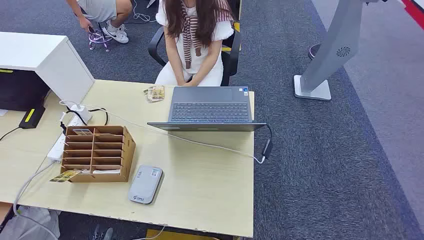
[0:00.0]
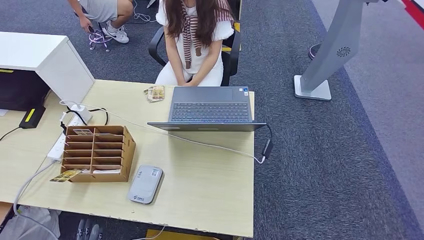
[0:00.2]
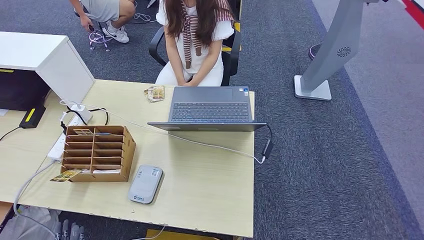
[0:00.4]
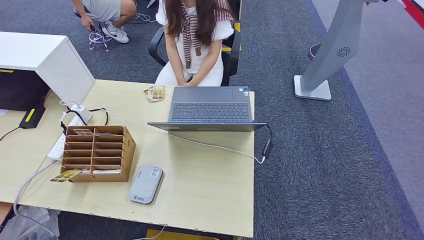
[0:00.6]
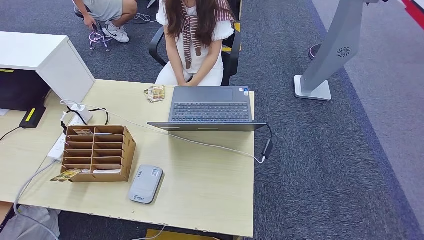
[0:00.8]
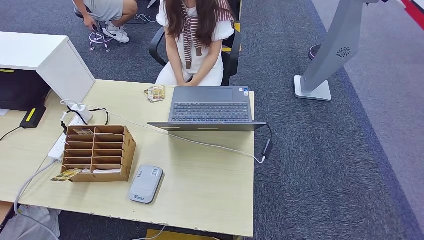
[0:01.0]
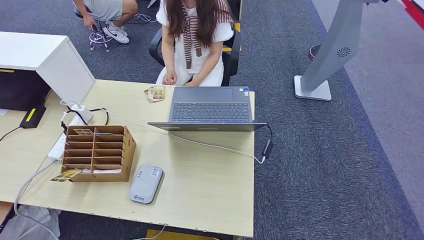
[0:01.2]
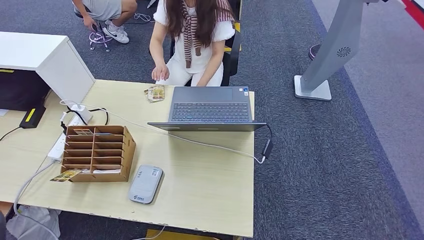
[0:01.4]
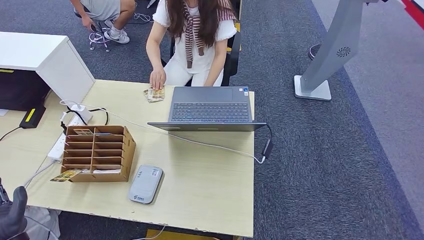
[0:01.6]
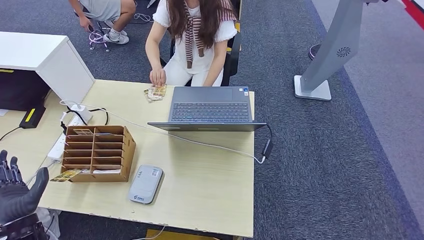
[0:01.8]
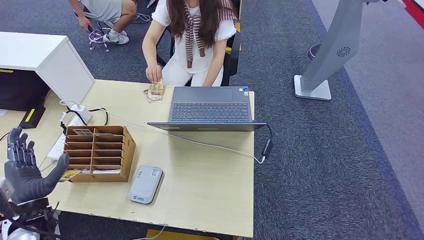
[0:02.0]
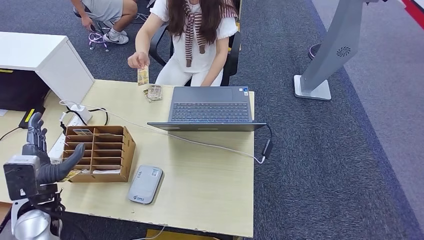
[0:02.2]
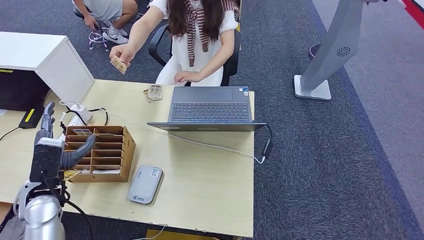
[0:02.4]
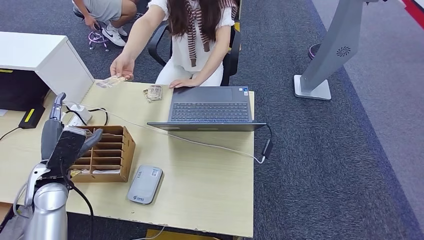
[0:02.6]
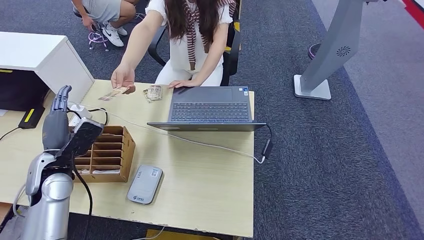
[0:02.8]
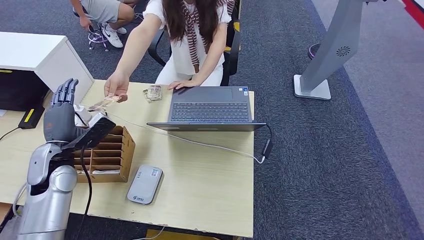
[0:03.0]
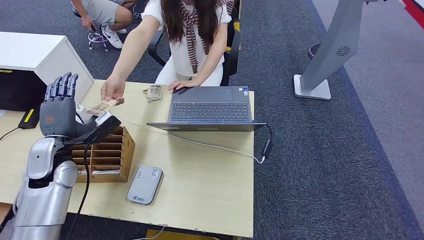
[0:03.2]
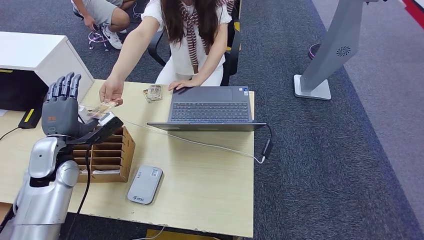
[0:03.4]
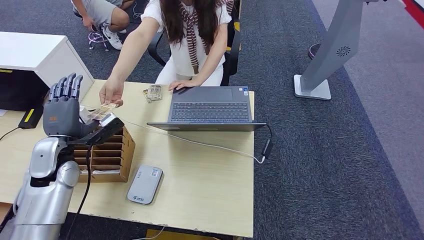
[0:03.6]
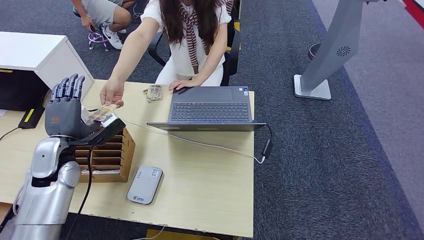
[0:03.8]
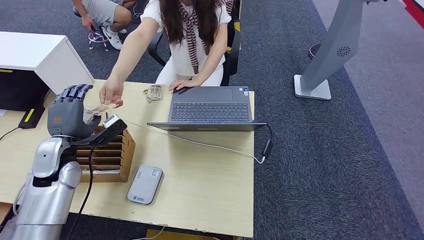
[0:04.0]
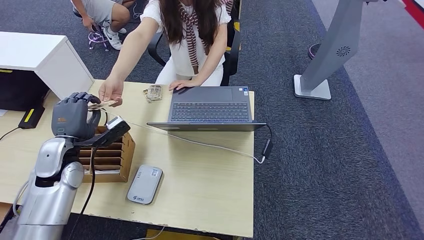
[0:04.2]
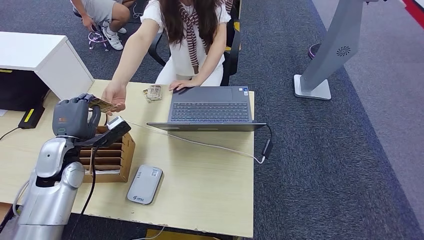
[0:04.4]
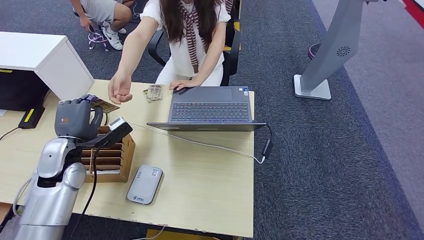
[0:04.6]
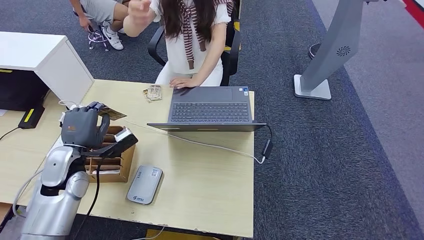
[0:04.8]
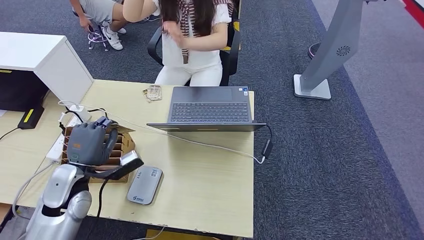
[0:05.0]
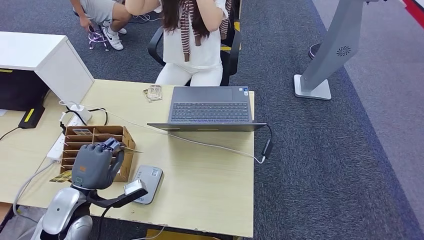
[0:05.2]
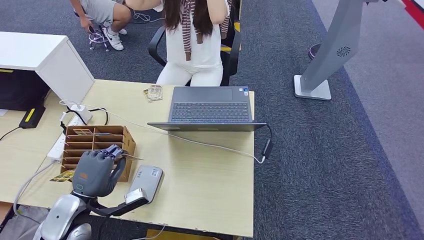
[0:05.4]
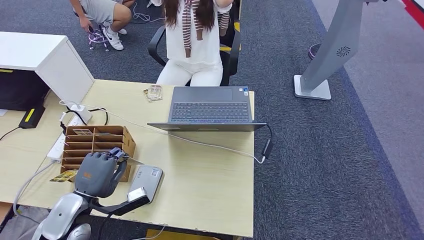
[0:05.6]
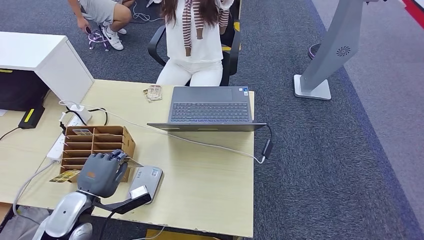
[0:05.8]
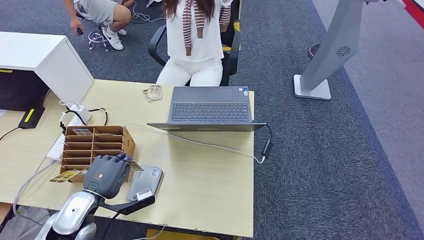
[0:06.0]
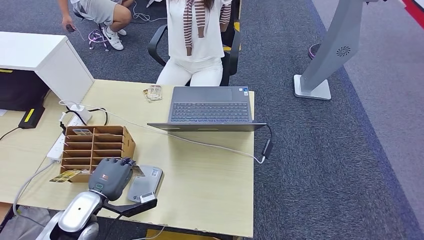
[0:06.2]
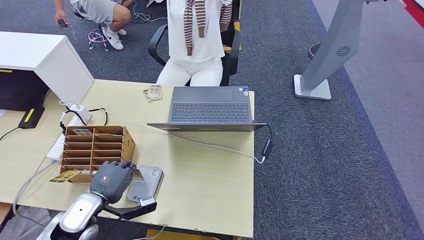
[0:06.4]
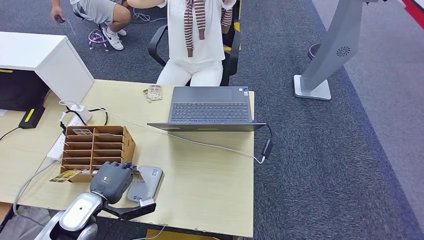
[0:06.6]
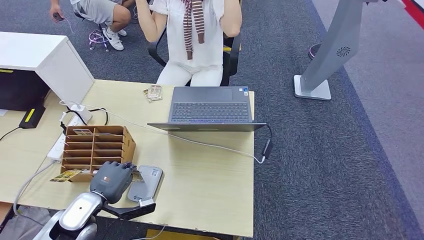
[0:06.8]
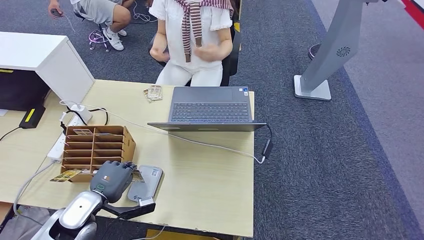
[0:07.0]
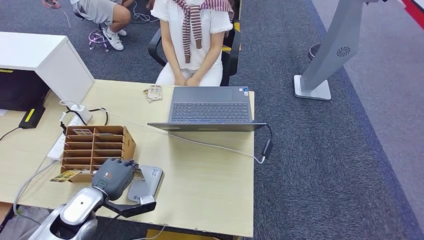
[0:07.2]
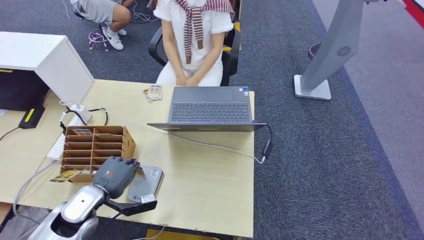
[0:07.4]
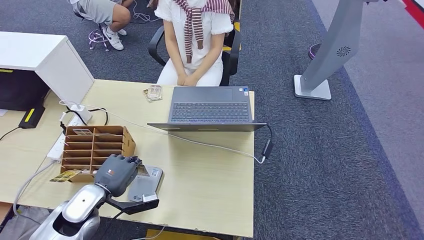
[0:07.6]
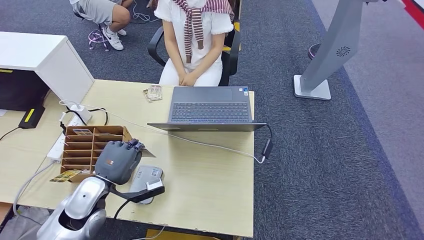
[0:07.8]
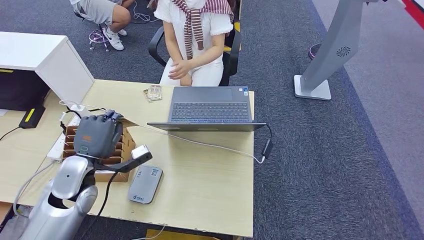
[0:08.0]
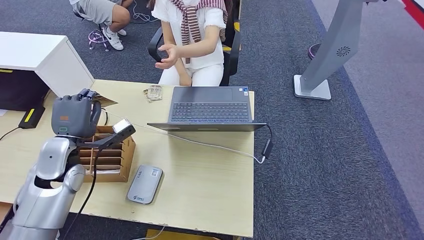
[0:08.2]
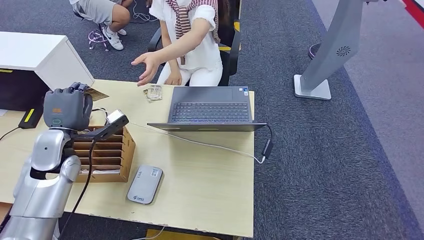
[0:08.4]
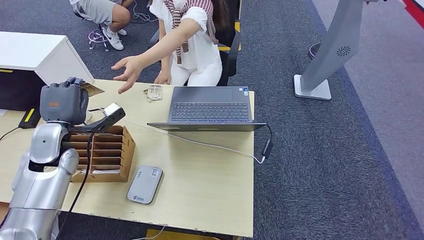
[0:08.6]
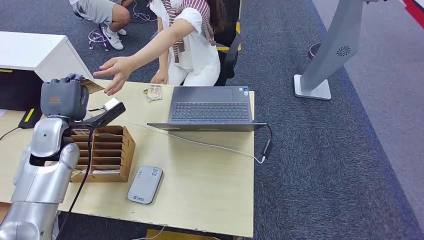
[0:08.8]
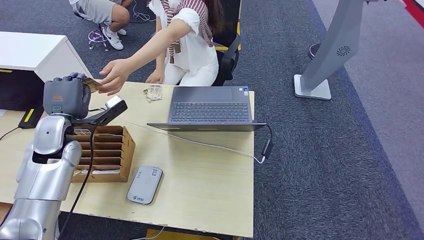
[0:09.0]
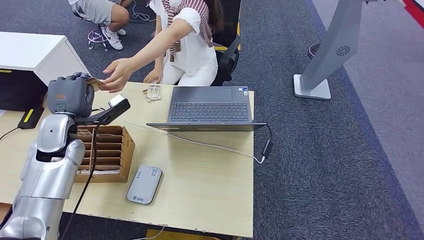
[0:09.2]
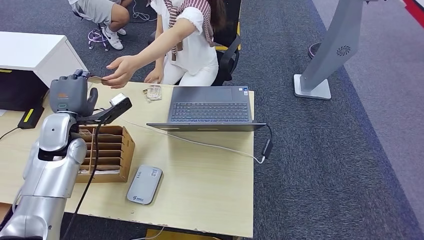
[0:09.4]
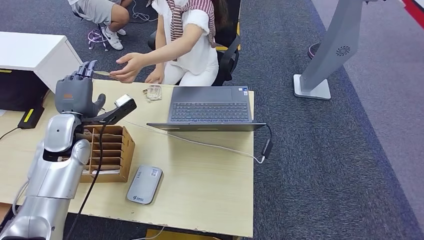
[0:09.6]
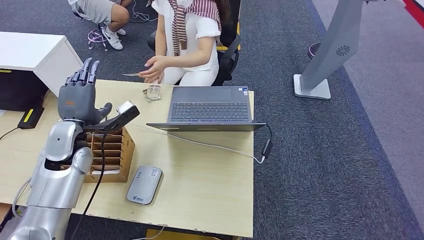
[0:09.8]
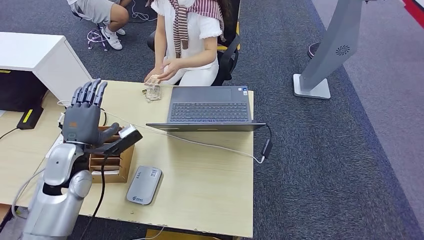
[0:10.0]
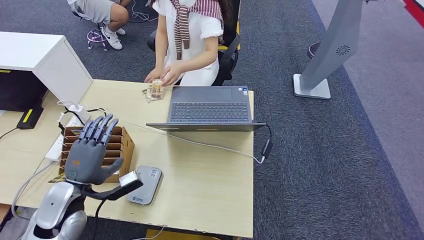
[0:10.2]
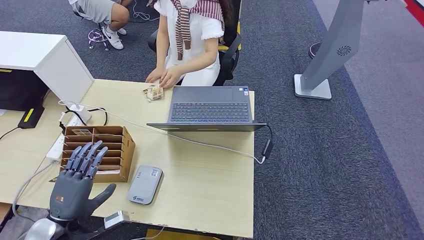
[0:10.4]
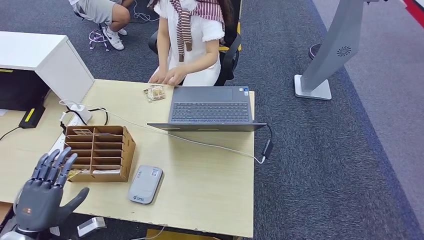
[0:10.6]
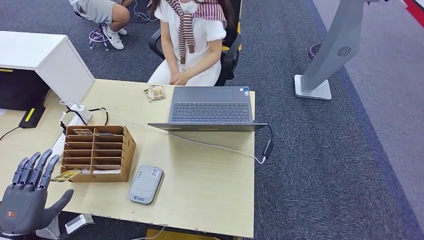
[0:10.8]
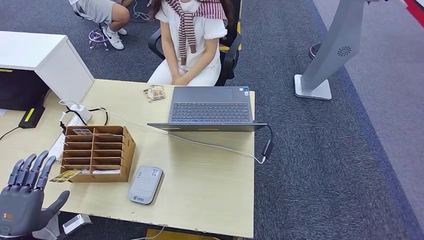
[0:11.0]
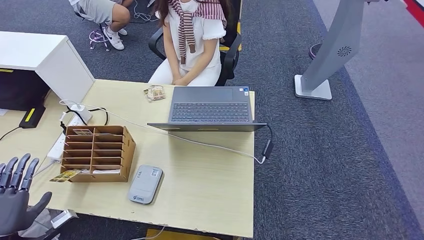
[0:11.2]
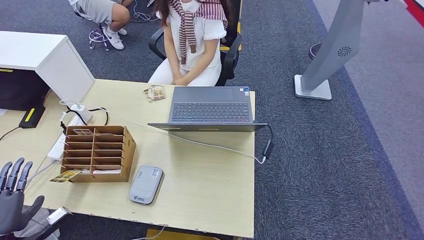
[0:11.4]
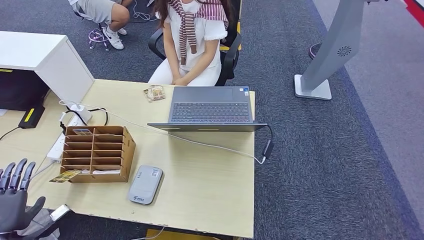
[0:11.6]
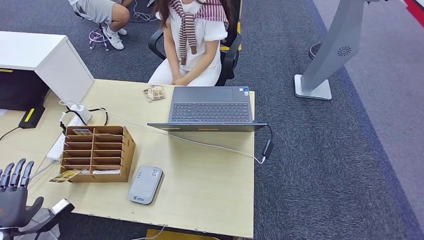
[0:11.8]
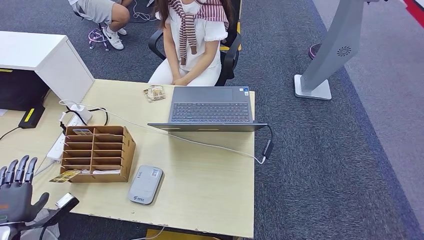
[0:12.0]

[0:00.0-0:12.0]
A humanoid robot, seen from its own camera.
Step, 0.0 to 4.6 s: Take the ID card from the person's hand.
Step, 4.8 to 6.4 s: Place the ID card on the card reader.
Step, 6.6 to 9.8 s: Hand the ID card to the person.
1.6 to 3.0 s: The left hand moves forward and upward, some 20 cm.
3.0 to 4.4 s: There are only small adjustments of the hands.
4.4 to 6.0 s: The left hand goes about 15 cm backward and downward.
6.0 to 7.6 s: There are only small adjustments of the hands.
7.6 to 9.0 s: The left hand shifts approximately 20 cm forward, upward and to the left.
9.0 to 10.4 s: The left hand moves backward and downward, approximately 25 cm.
10.4 to 12.0 s: The left hand shifts about 15 cm to the left.

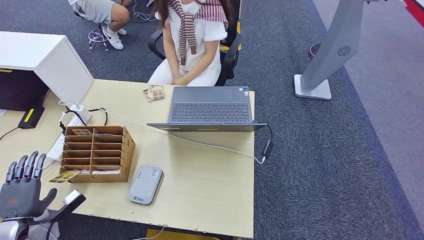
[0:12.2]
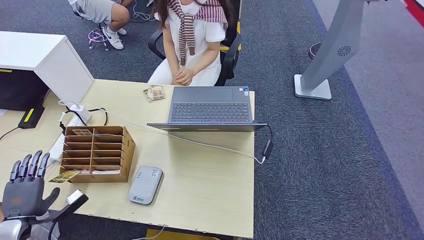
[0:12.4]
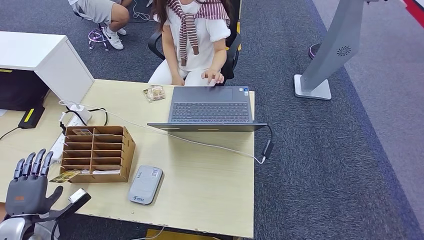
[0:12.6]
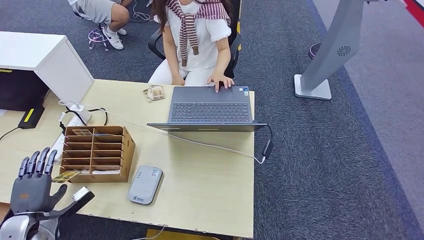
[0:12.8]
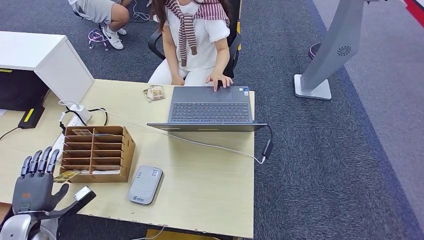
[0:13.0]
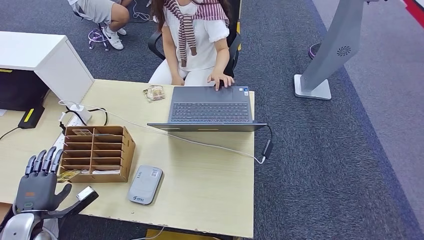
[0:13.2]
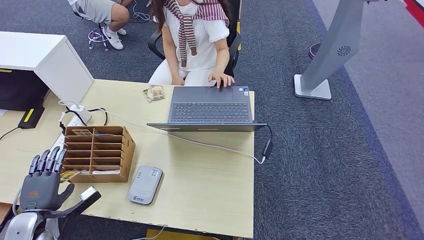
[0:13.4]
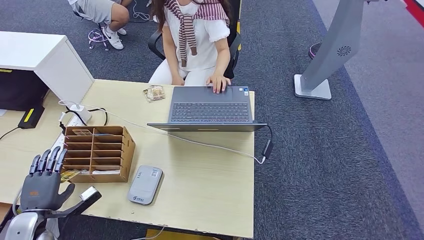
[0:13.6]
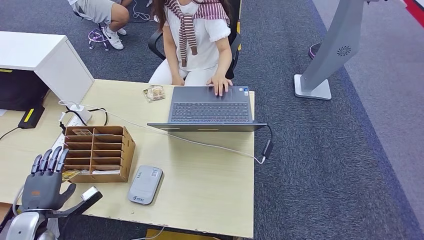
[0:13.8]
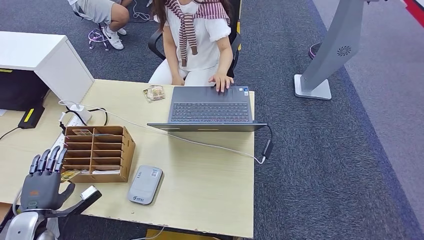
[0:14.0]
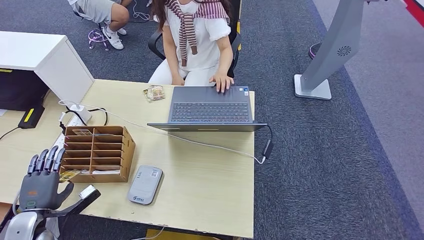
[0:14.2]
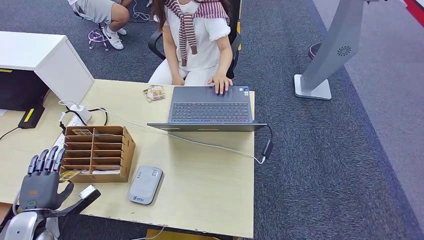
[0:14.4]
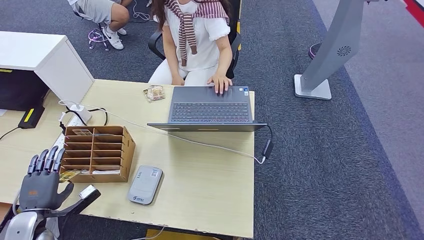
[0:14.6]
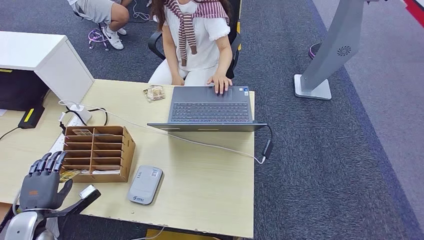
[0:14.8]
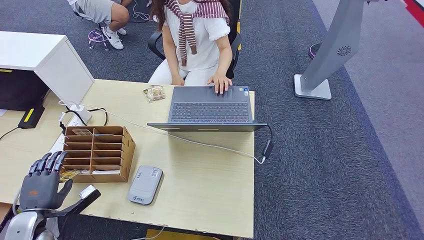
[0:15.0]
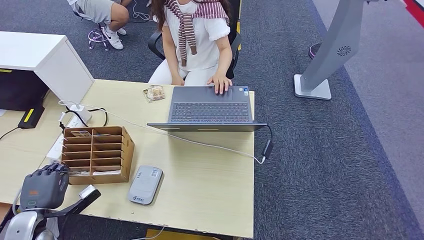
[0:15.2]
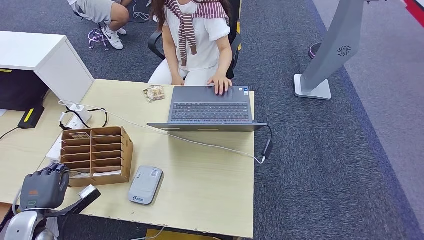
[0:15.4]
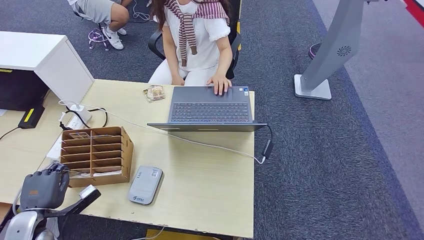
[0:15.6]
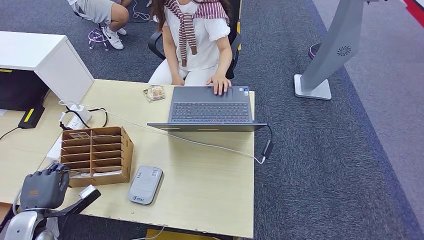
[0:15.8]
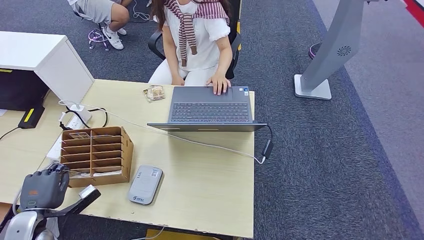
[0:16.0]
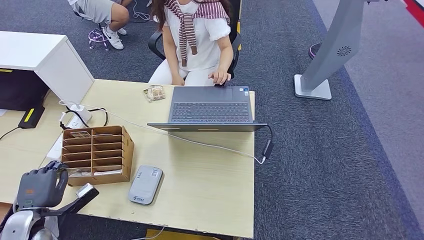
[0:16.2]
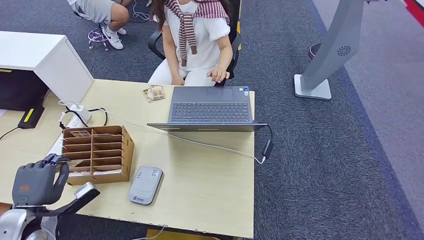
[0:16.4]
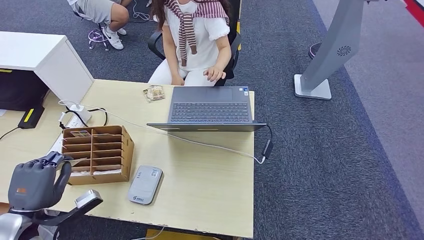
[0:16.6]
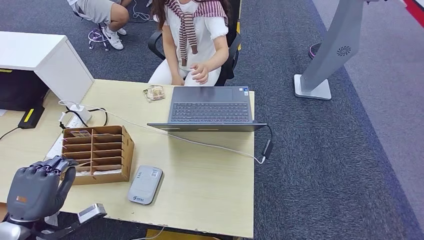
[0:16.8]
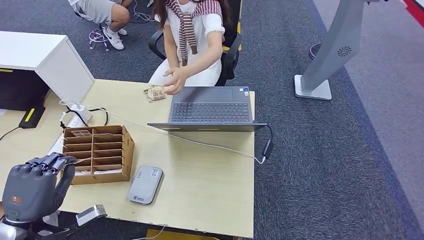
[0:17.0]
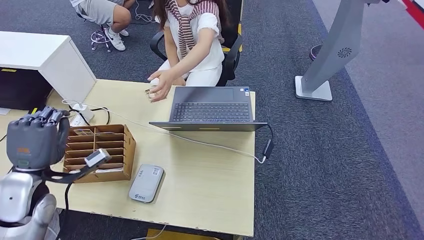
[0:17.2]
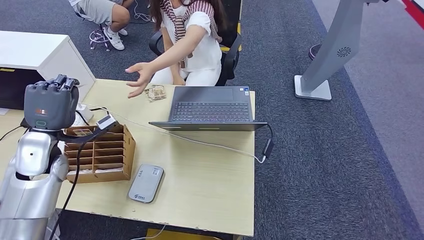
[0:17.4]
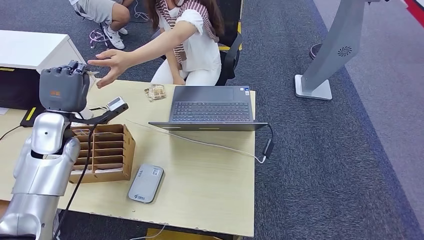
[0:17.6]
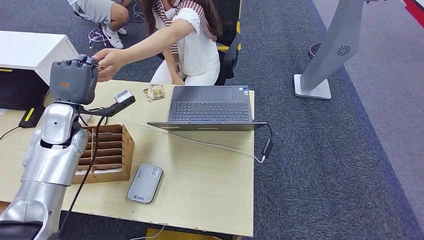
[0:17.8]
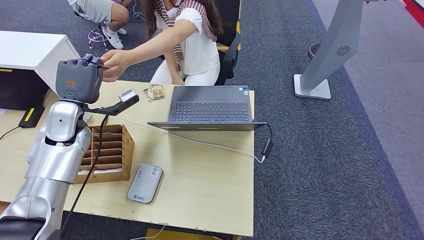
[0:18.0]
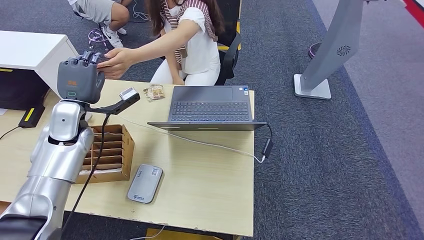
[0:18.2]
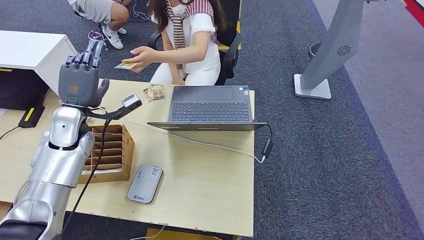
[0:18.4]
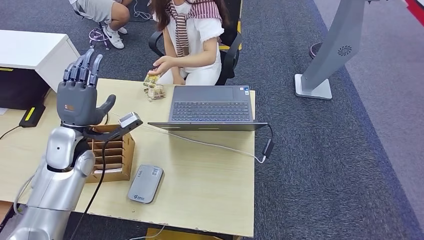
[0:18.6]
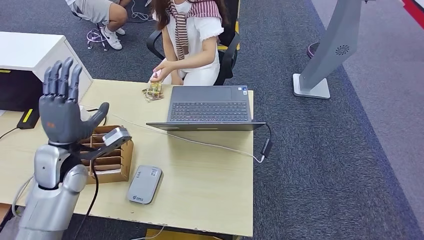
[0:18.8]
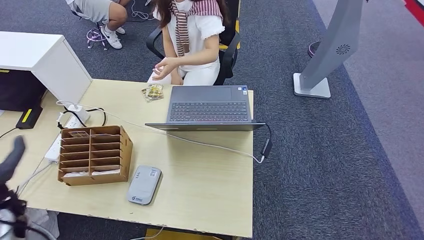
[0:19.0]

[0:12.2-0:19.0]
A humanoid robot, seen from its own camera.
Step, 12.2 to 15.0 s: Pick up the room key from the key card box.
Step, 15.4 to 19.0 s: Hand the room key to the person.
12.2 to 13.6 s: The hands stay close to where they were, moving slightly.
13.6 to 16.2 s: Both hands stay about where they are.
